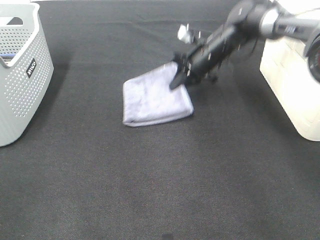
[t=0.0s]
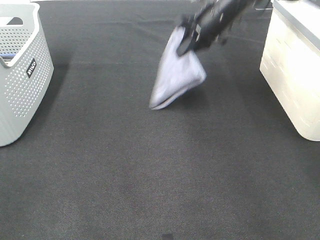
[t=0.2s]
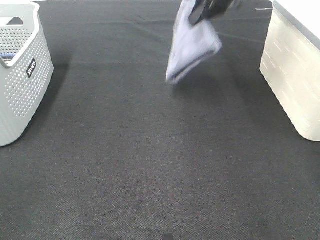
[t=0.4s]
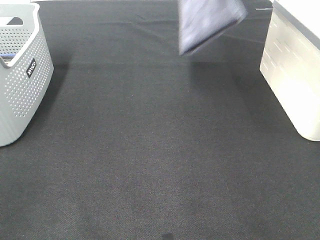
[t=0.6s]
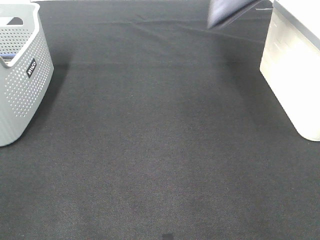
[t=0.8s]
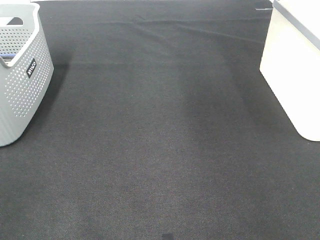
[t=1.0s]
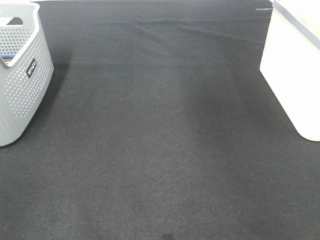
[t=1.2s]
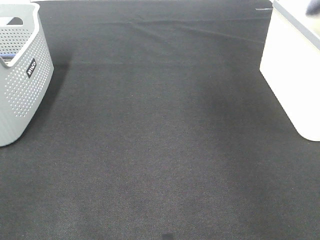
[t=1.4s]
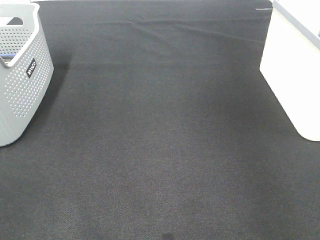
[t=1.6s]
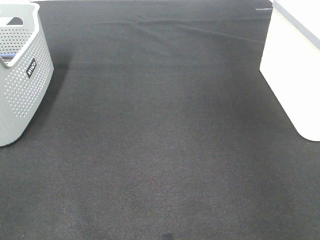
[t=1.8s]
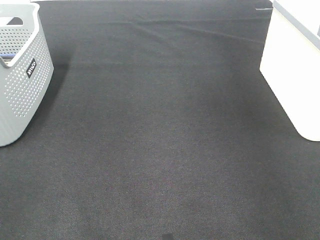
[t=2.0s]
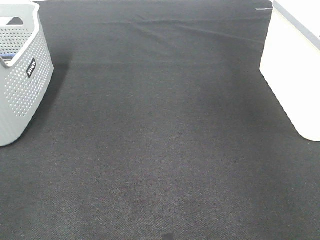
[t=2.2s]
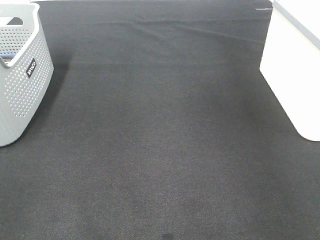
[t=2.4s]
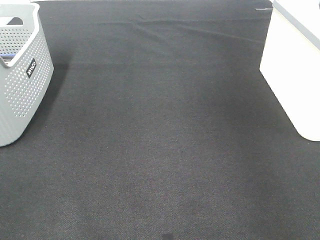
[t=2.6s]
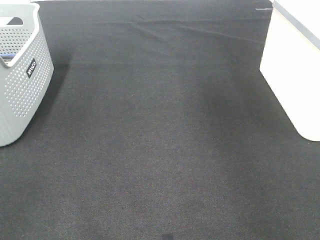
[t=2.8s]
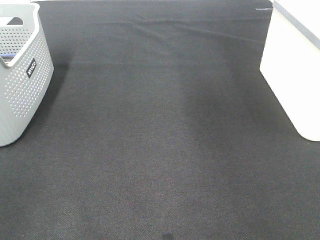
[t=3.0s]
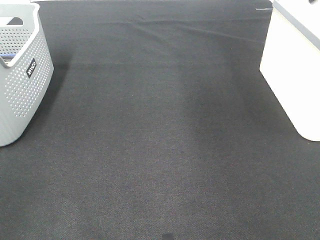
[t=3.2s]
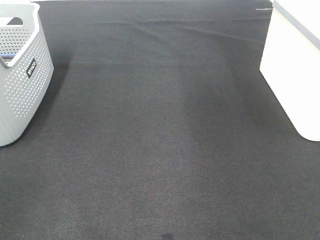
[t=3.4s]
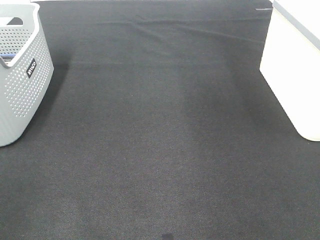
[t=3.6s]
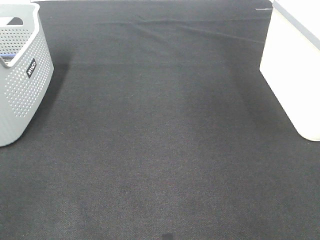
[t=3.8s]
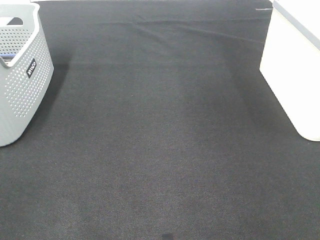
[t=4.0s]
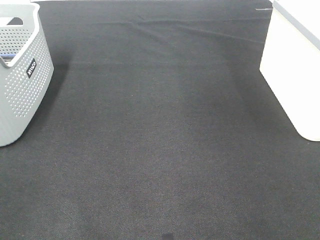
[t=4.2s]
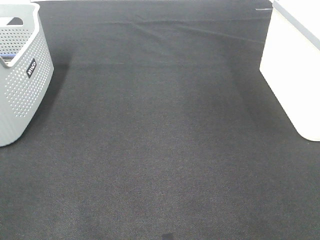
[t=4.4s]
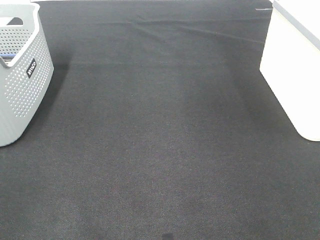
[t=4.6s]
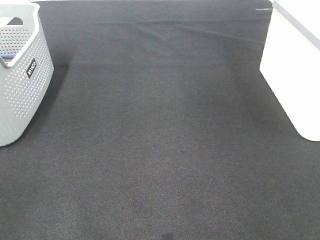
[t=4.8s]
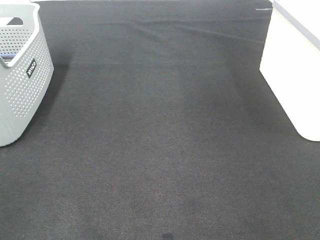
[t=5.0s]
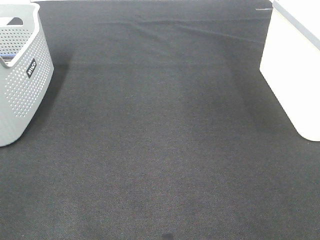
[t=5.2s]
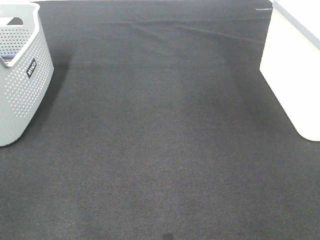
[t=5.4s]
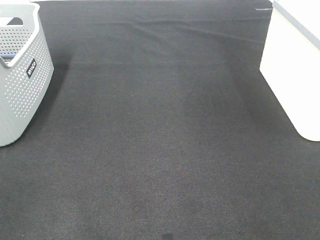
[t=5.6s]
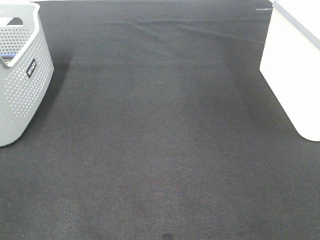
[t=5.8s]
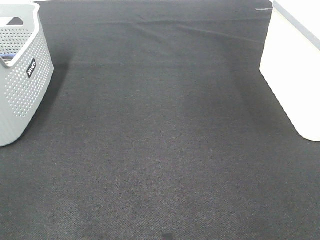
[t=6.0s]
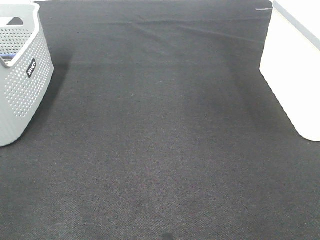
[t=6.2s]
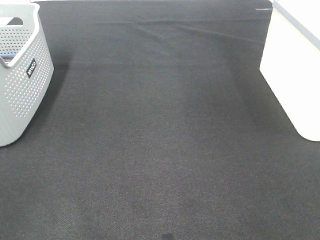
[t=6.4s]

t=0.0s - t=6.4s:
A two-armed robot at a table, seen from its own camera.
Step, t=0.0s - t=2.2s: Right hand: place the grey towel in right basket.
t=0.0s - t=1.6s: The right gripper travels to the right and upward by approximately 35 cm.
